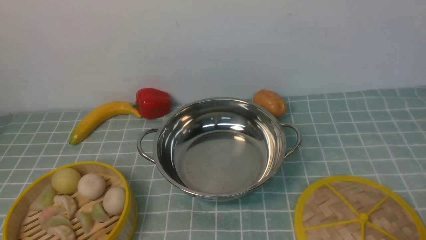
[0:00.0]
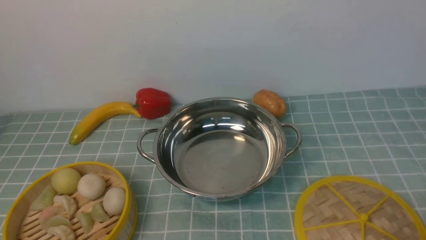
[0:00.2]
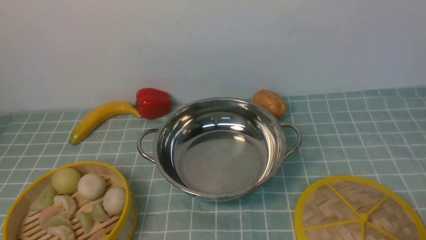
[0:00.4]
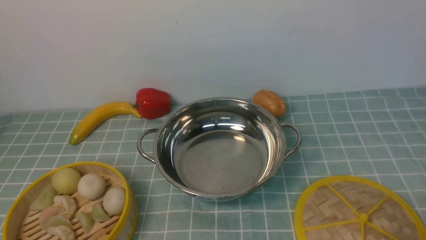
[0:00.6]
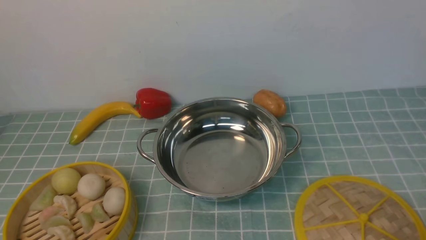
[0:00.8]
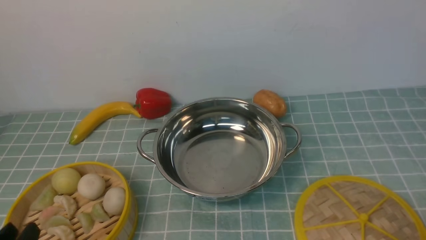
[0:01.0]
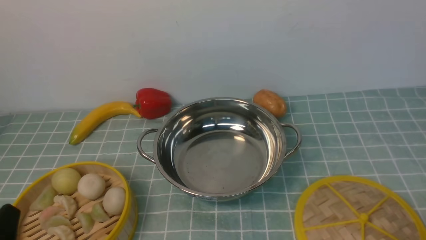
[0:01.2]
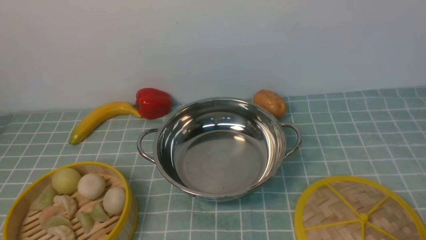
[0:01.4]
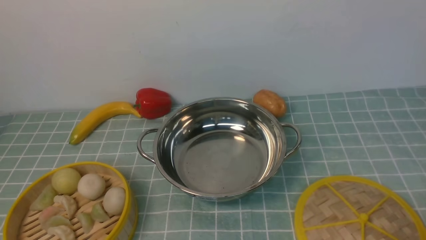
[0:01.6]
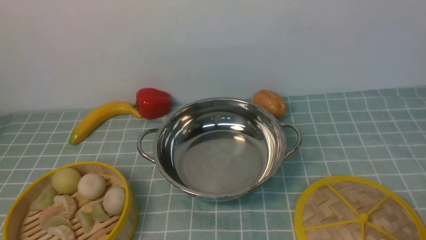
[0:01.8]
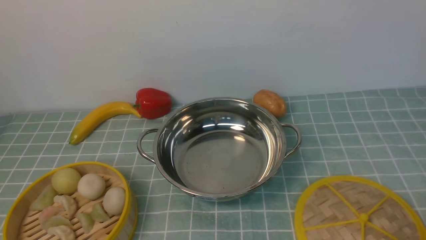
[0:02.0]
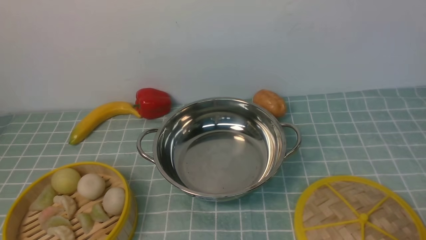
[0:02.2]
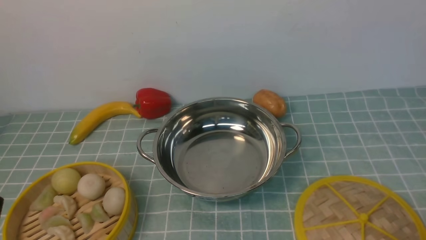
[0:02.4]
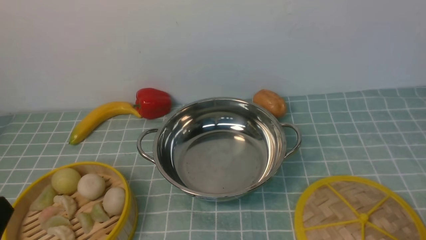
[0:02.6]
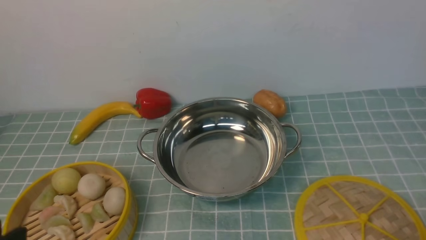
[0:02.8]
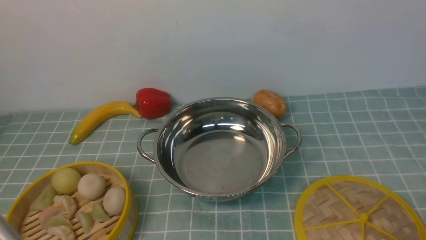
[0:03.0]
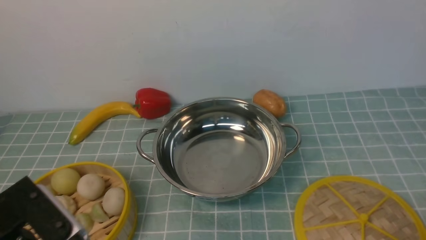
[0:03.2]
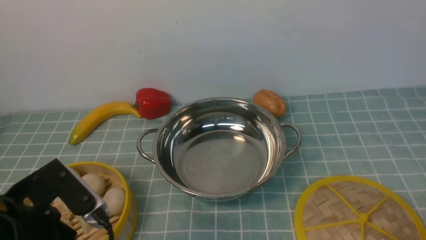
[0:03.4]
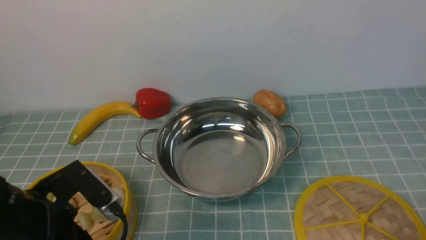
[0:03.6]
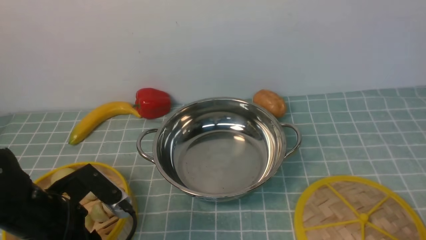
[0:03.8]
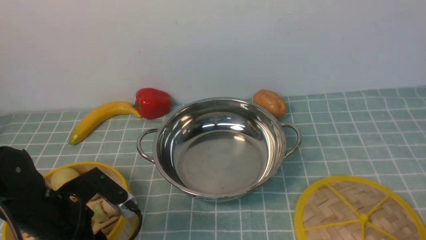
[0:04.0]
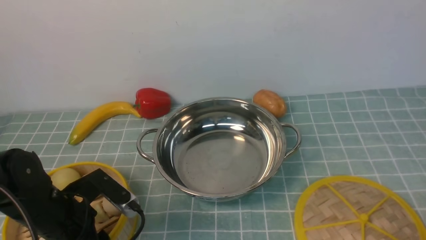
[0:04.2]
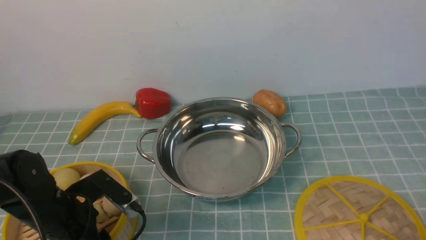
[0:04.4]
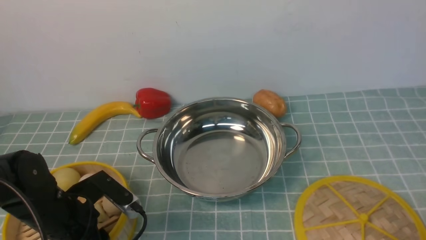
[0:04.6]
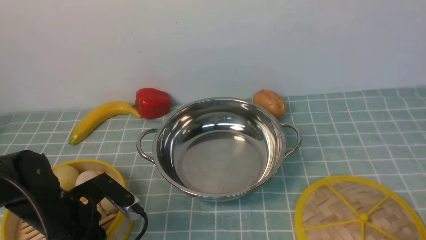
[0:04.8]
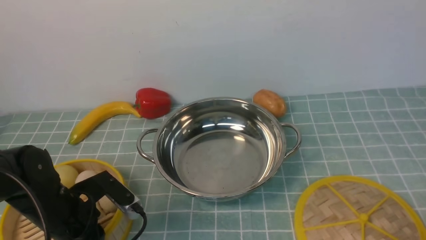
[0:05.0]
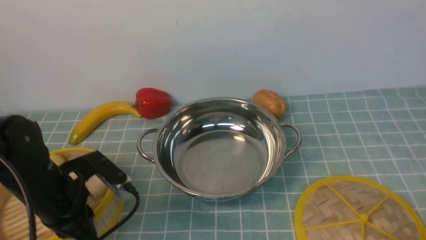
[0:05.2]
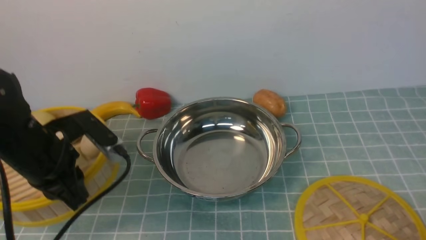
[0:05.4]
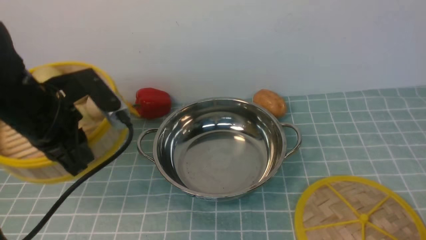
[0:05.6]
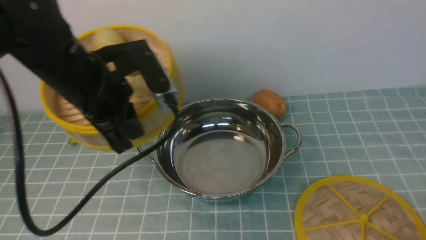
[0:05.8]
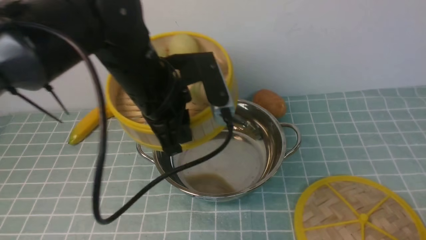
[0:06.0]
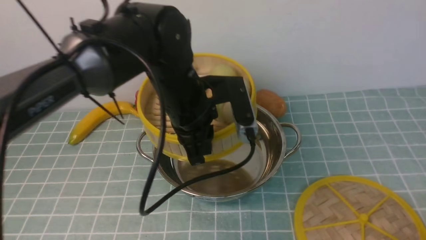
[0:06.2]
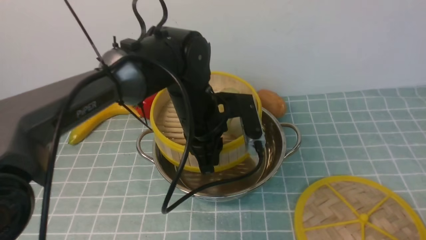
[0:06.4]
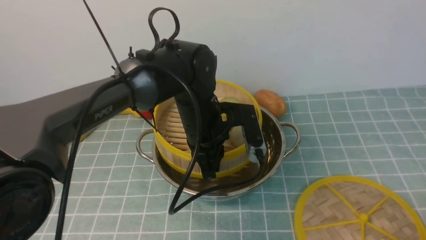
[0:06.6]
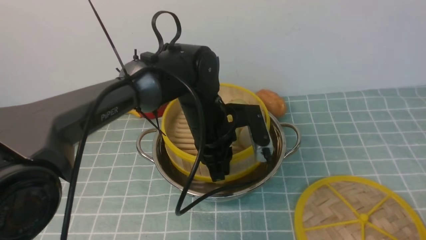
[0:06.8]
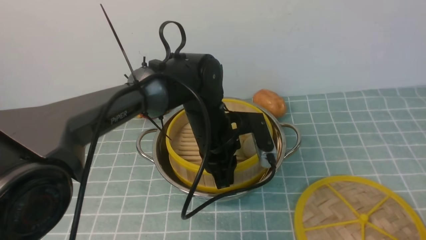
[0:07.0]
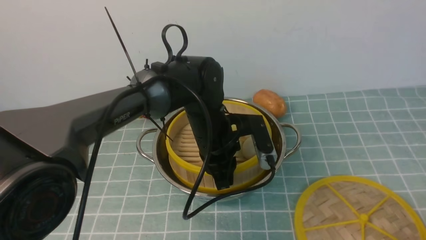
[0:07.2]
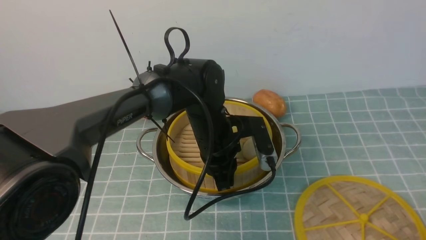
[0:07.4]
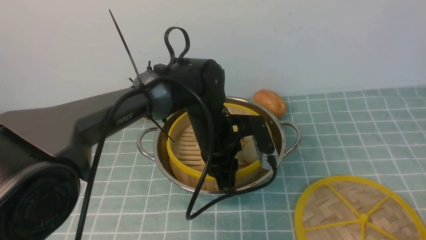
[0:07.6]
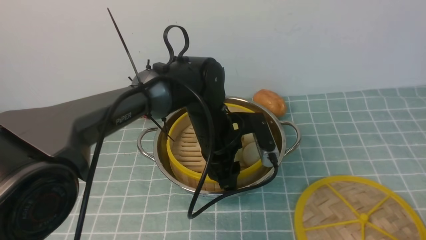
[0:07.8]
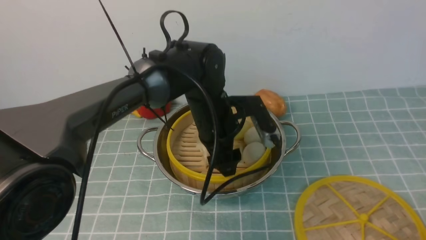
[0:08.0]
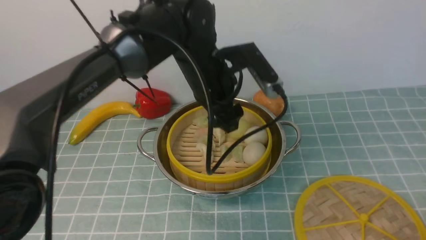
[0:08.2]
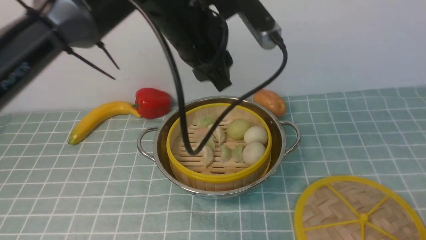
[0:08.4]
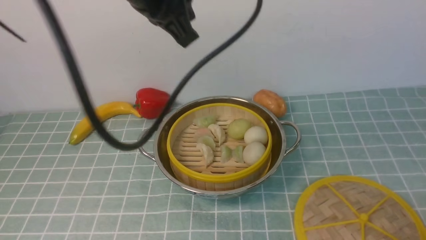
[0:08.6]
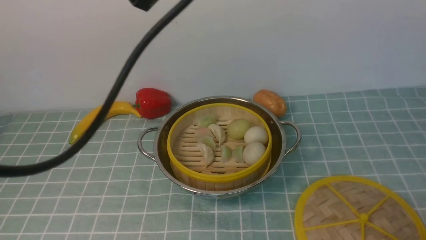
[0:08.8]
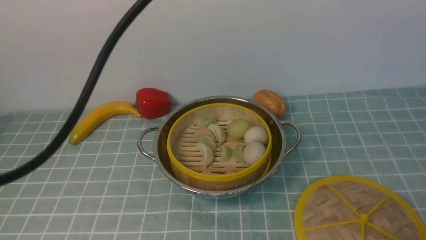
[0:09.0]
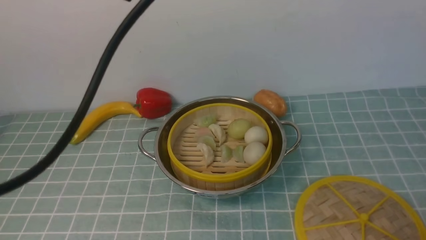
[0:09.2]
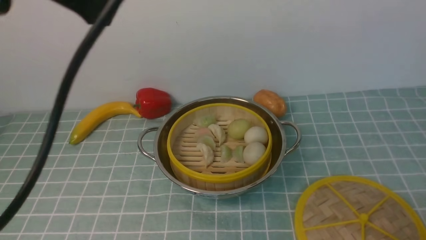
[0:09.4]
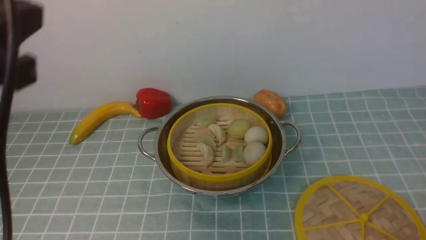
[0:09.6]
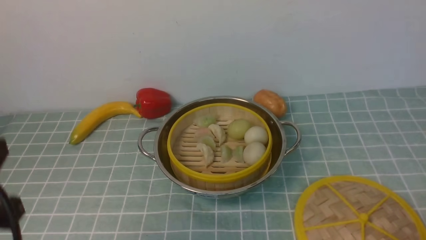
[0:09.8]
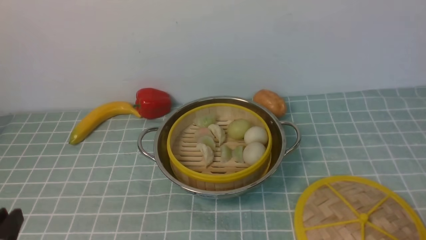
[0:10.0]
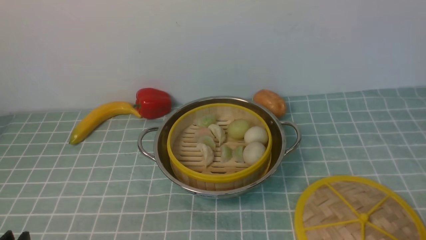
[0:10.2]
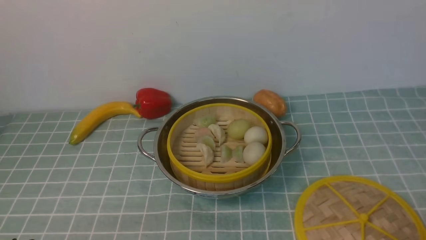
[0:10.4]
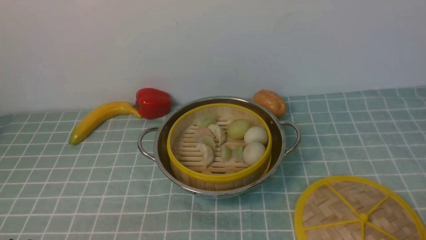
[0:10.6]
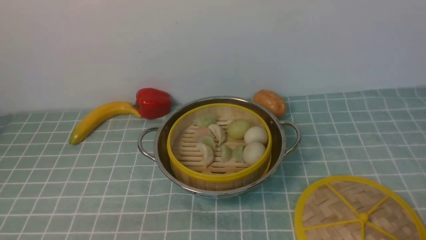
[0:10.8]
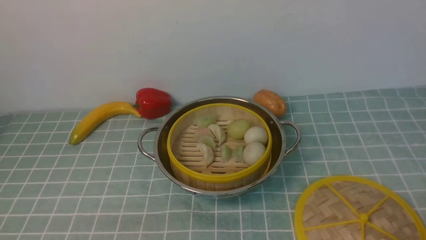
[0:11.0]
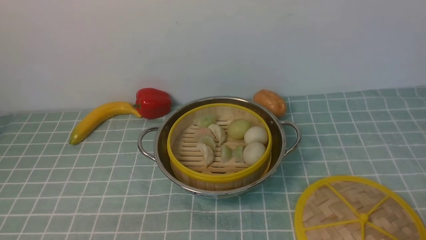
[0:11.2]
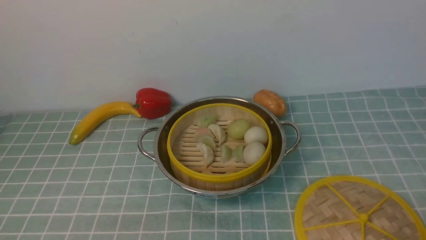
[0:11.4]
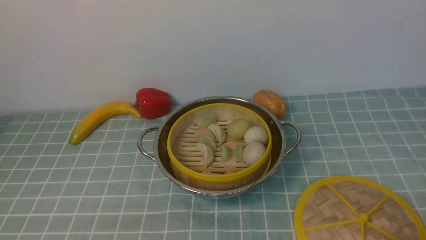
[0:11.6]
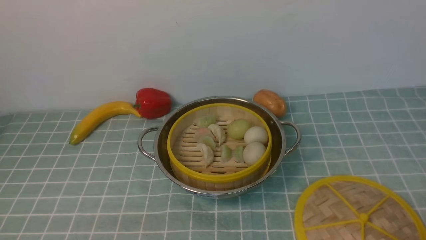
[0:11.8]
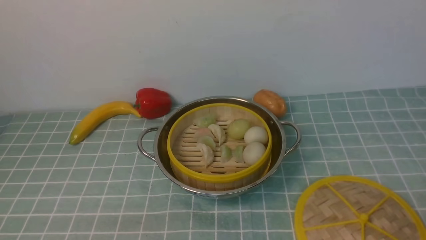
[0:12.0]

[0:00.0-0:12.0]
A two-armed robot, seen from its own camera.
Task of the whole recording: place the steamer in the pot on the blue tablecloth, and put the lid on the steamer.
Step, 0:00.0 to 0:05.6: use the left arm to lift the steamer closest to it.
Step, 0:05.8 to 0:08.2: use the left arm to put the steamer into the iron steamer pot in the middle.
0:03.0 to 0:04.4: The left gripper is displaced forward and downward by some 20 cm.
0:04.4 to 0:06.0: The left gripper heads upward, to the right and forward, covering roughly 20 cm, and closes.
0:06.0 to 0:07.6: The left gripper goes some 15 cm downward and to the right.
0:07.6 to 0:09.0: The left gripper heads upward, covering some 30 cm, and opens and closes again.
0:09.0 to 0:10.4: The left gripper is displaced downward, backward and to the left by some 40 cm, and opens.

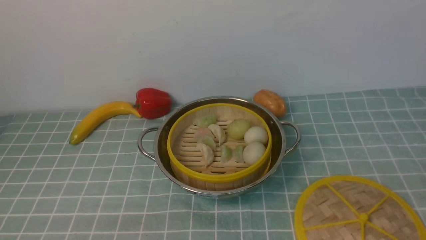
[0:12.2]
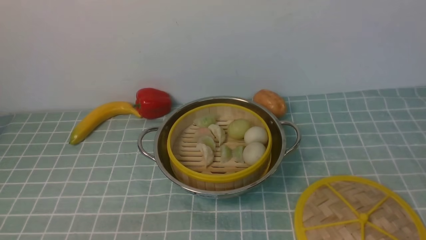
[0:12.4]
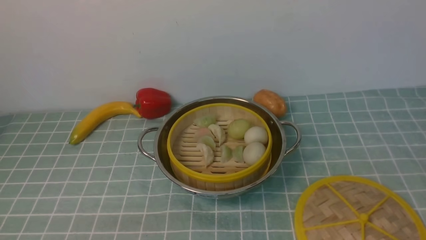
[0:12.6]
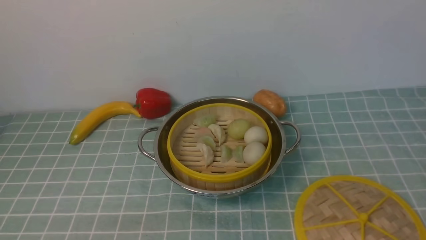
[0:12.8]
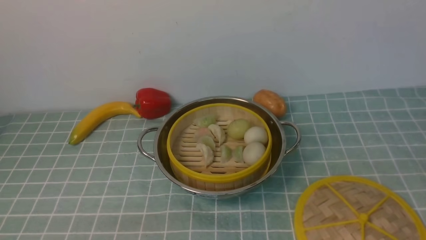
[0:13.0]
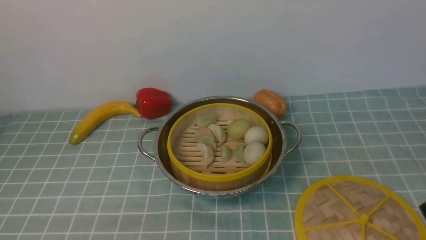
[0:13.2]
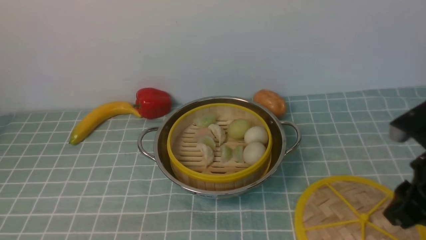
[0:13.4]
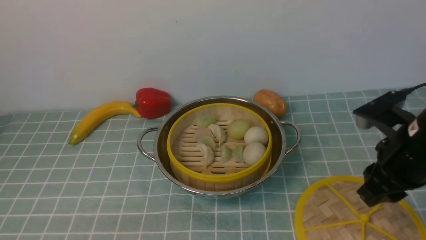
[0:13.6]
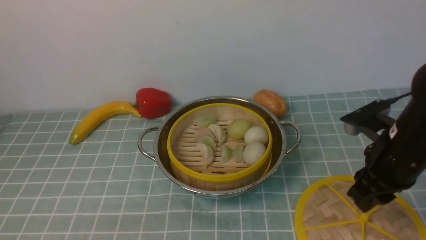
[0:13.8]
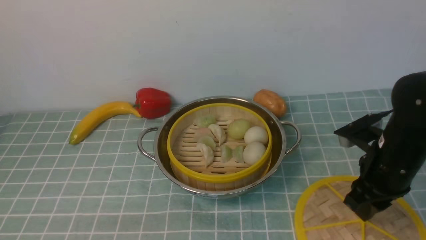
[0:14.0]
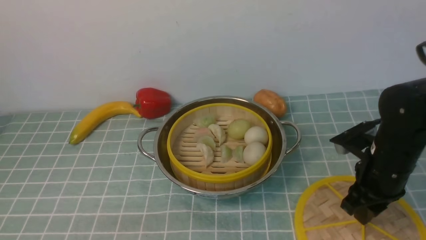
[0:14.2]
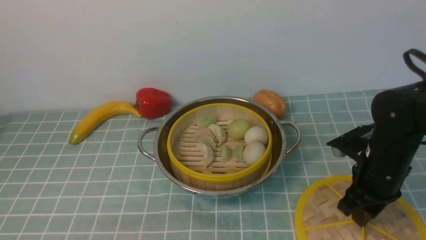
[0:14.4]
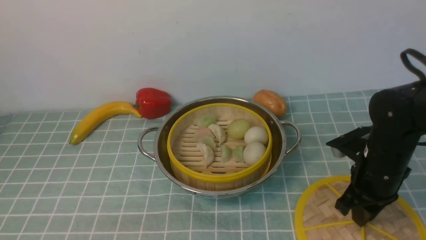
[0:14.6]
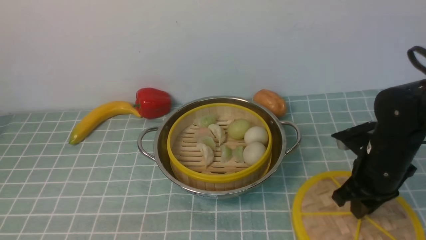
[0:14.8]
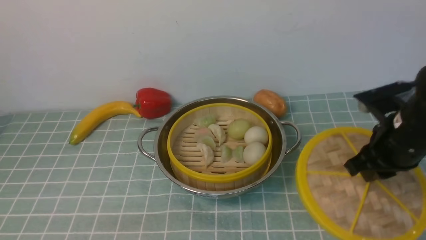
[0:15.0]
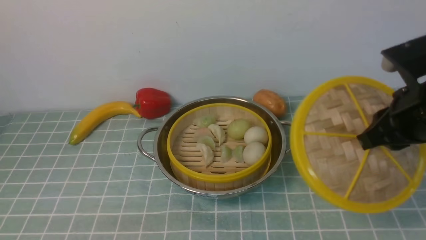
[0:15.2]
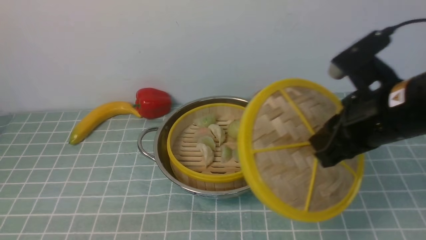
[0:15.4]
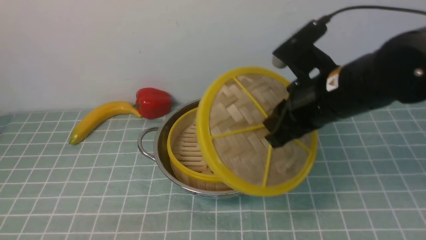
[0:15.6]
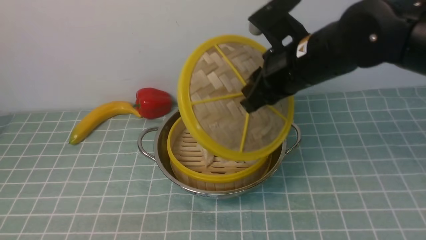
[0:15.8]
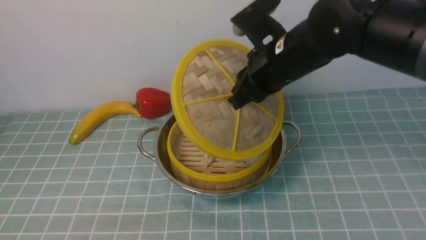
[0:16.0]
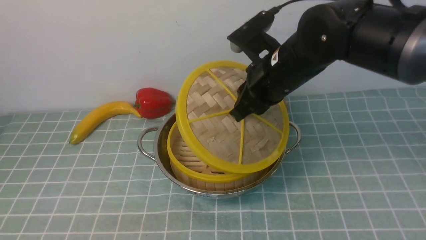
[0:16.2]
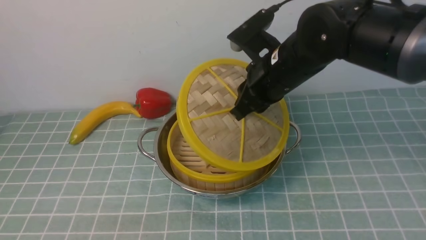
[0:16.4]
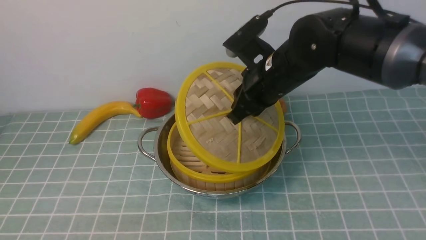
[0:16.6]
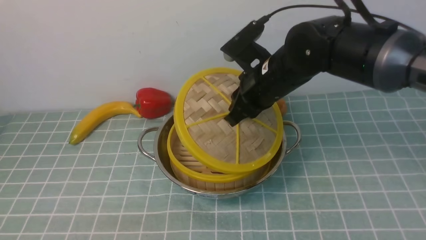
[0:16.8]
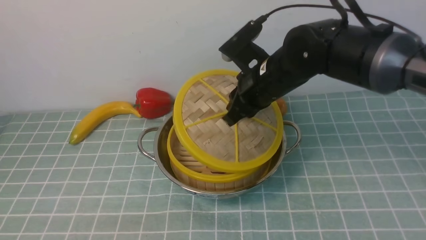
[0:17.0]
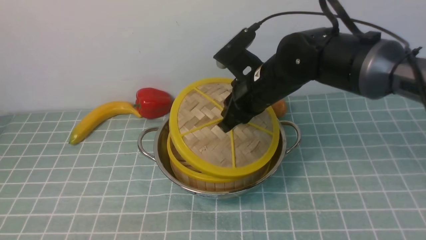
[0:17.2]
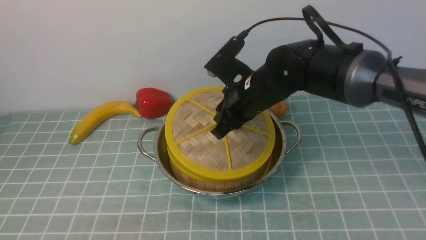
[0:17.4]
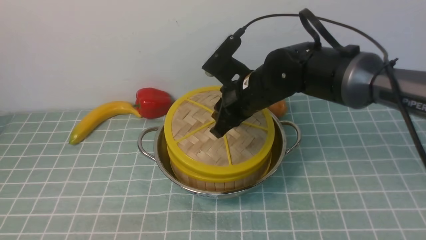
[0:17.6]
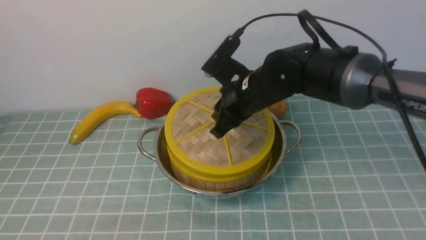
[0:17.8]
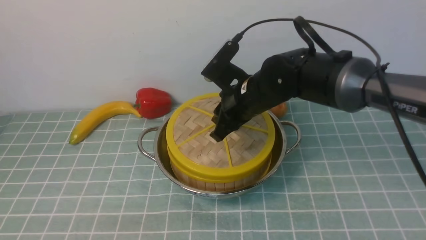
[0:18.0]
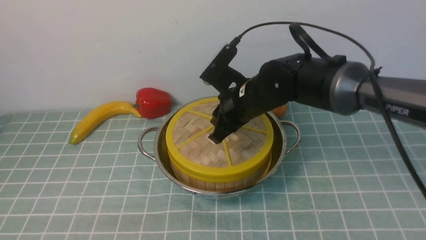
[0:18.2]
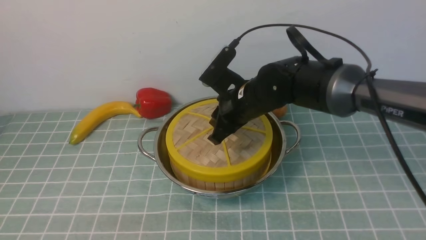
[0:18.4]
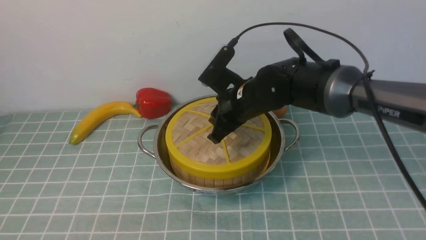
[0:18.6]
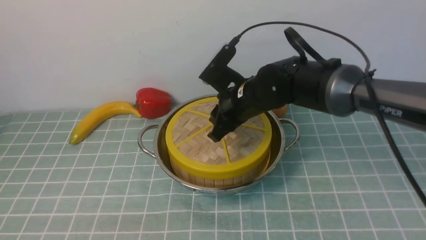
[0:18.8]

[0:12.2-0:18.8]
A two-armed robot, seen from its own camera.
Task of the whole recording: place the steamer in the pot on the blue tablecloth, and put the lid on the steamer.
Step, 0:12.2 to 0:15.2: use the right arm to lift the lid of the steamer.
0:12.2 to 0:13.8: The right gripper heads forward, covering some 20 cm.
0:13.8 to 0:15.4: The right gripper goes some 5 cm upward, and closes up.
0:15.4 to 0:17.2: The right gripper heads to the left and forward, covering about 20 cm.
0:17.2 to 0:18.8: The grippers stay close to where they were, moving slightly.
